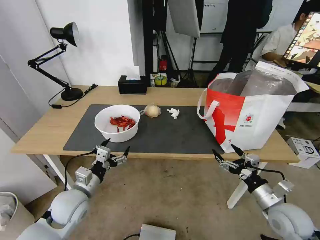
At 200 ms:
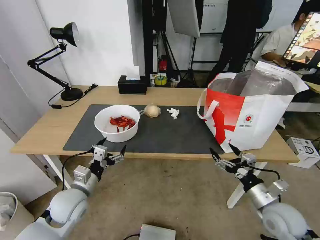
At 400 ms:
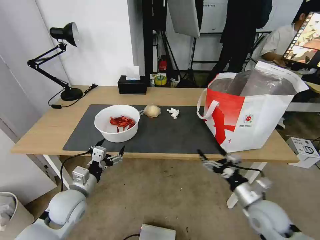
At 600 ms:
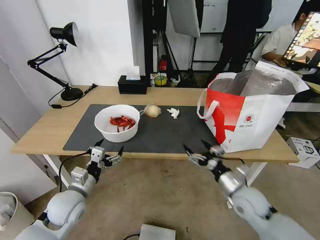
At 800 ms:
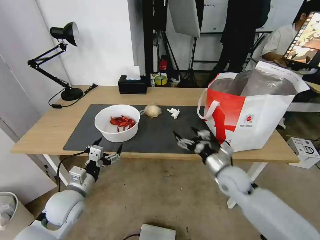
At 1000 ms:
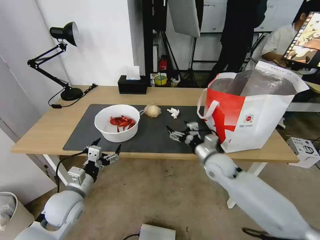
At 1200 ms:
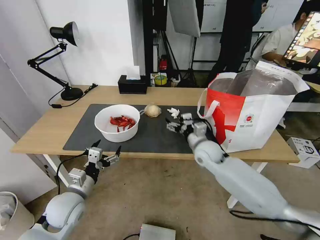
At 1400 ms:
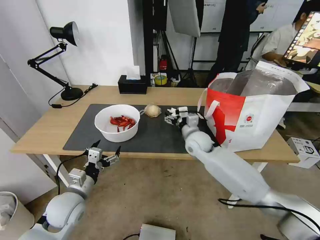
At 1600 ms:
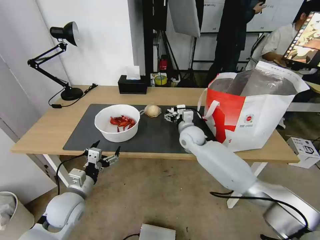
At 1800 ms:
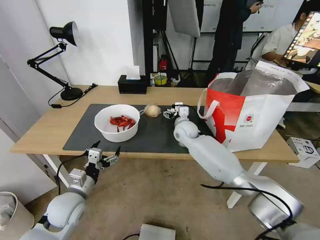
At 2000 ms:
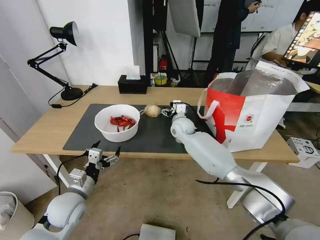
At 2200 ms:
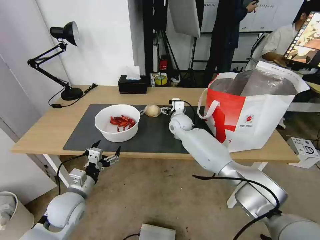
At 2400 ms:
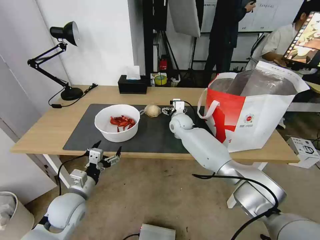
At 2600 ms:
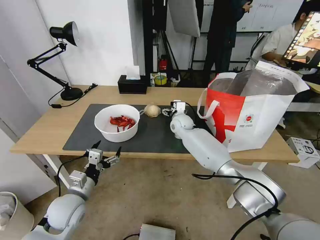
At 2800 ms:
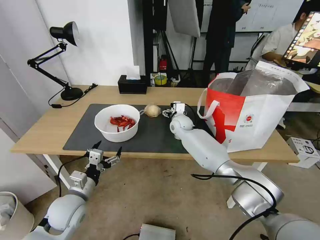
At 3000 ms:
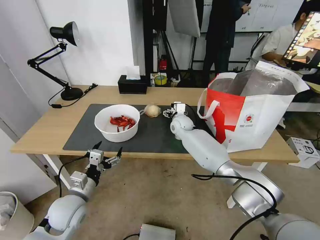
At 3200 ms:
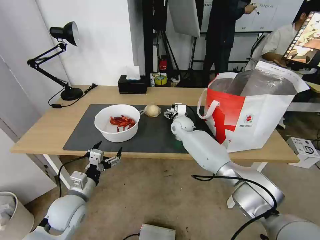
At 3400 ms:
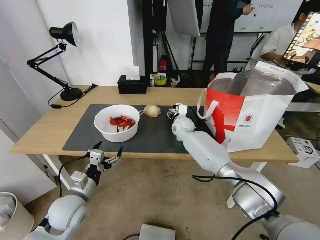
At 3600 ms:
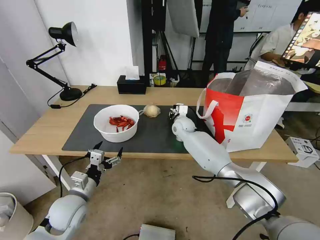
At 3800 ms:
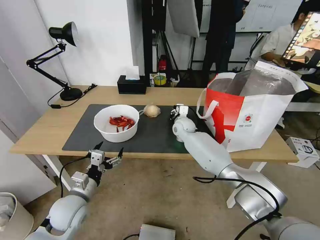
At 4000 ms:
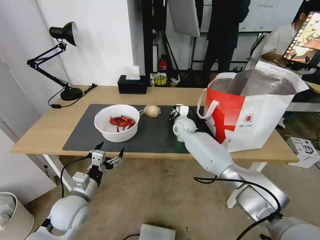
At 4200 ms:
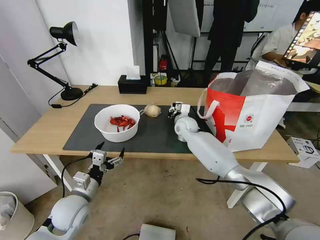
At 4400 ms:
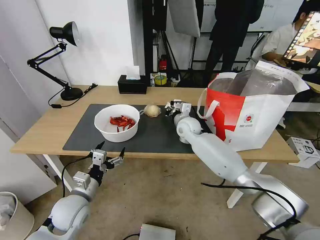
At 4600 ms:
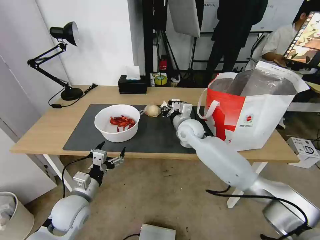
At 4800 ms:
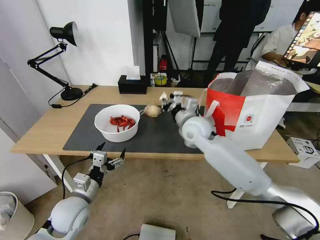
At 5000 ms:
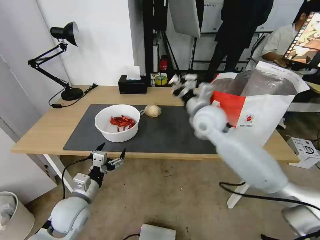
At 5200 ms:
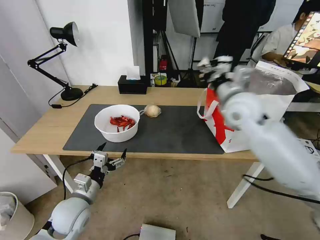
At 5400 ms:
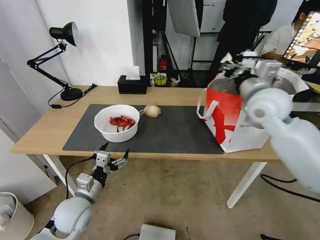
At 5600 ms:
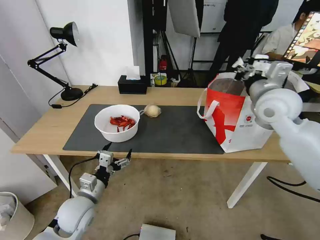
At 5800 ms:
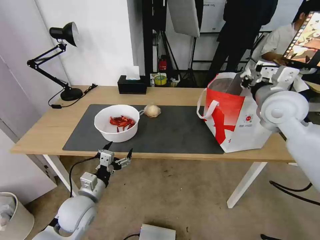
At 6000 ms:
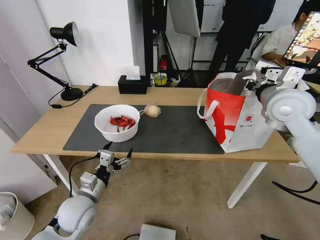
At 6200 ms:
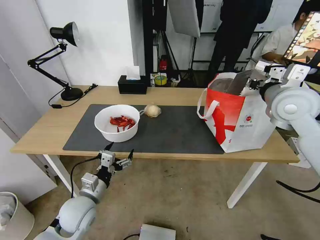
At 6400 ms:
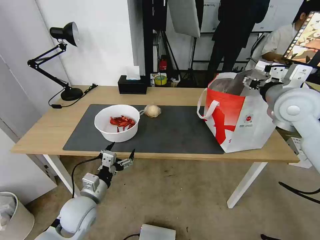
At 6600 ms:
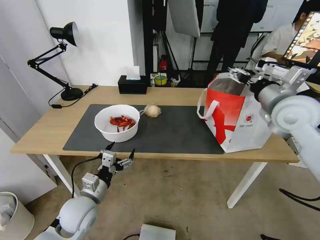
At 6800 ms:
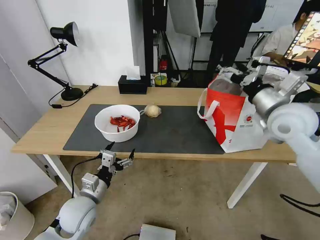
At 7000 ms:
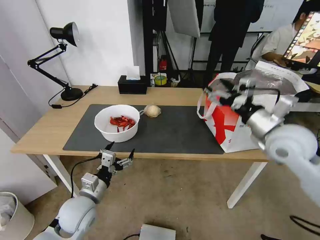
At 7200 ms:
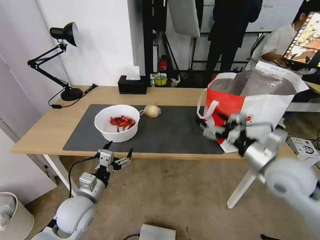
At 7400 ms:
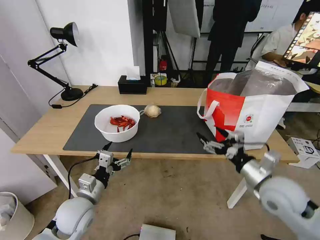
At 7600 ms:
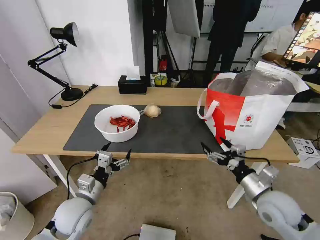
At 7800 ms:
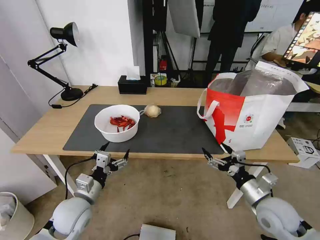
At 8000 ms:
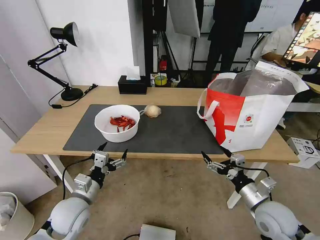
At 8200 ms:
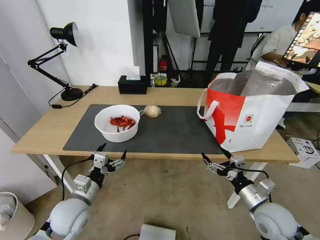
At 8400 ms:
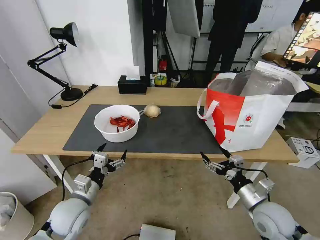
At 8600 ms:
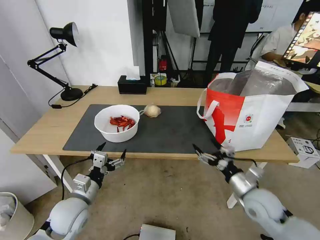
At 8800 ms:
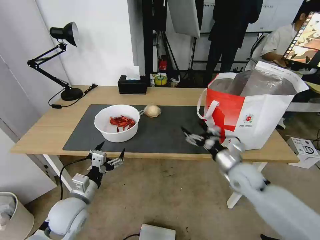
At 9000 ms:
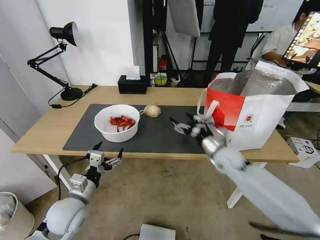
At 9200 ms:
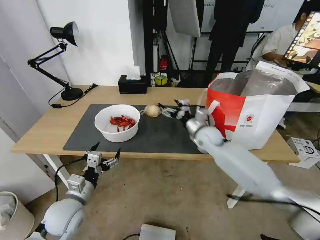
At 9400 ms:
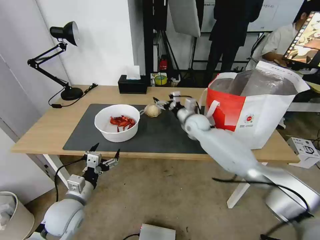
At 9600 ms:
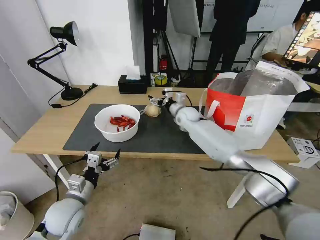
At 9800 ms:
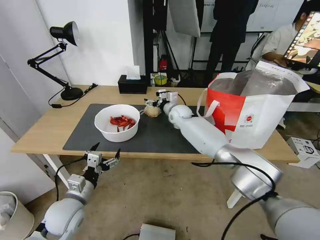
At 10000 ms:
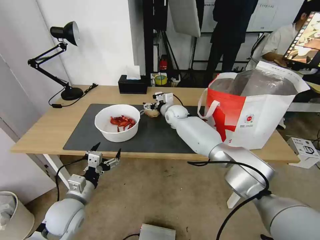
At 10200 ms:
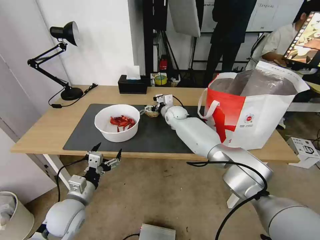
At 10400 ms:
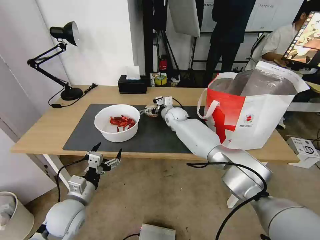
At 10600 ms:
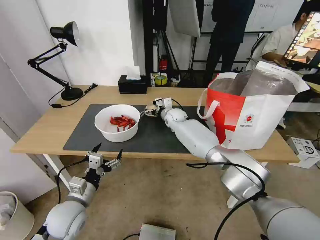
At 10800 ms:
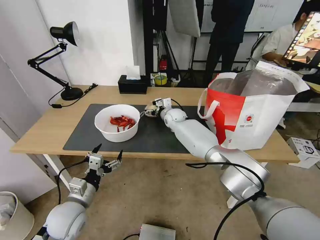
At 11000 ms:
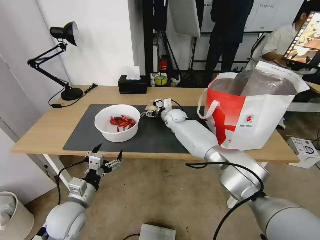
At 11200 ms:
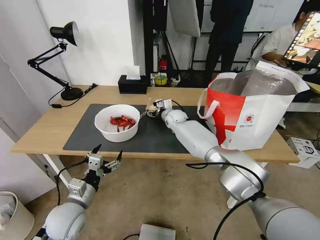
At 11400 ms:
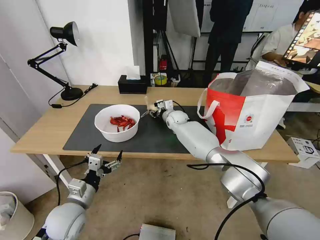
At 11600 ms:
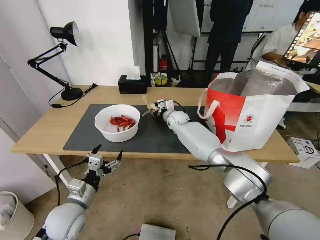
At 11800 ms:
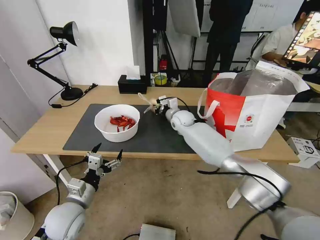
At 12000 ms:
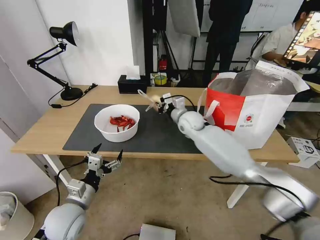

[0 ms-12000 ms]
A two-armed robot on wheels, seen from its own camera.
Task of the whole recording: Pick up the trash from the table and place it into the takeout bag.
0 ms to 1600 ms: The right gripper shifts about 35 cm forward and to the left.
1600 ms to 3000 ms: The right gripper heads forward, covering roughly 10 cm.
3000 ms to 4400 ms: The right gripper changes place by some 5 cm, and closes.
4400 ms to 6000 ms: The right gripper travels to the right, upward and backward by about 30 cm.
6000 ms to 7600 ms: The right gripper travels downward and backward by roughly 30 cm, and opens its fingers.
7600 ms to 9000 ms: The right gripper heads forward and to the left, covering some 20 cm.
9000 ms to 10400 ms: The right gripper goes roughly 25 cm forward and to the left.
10400 ms to 12000 ms: The right gripper heads backward, covering about 10 cm, and closes.

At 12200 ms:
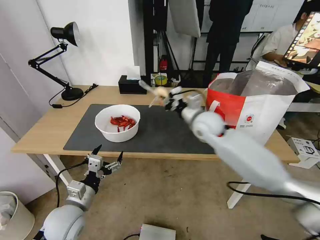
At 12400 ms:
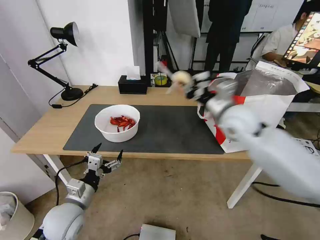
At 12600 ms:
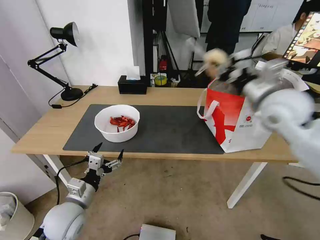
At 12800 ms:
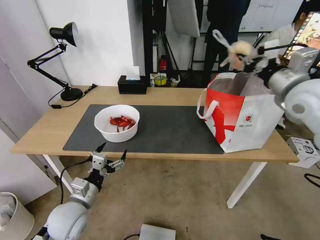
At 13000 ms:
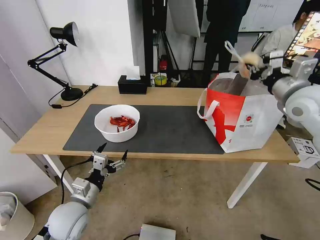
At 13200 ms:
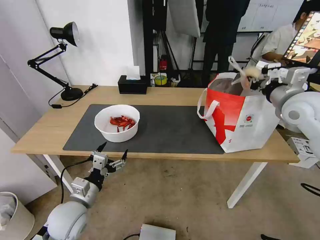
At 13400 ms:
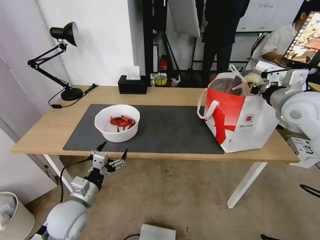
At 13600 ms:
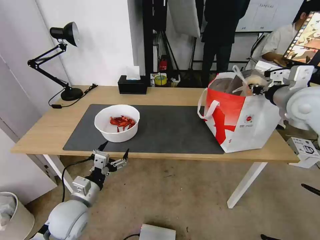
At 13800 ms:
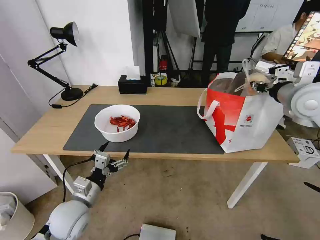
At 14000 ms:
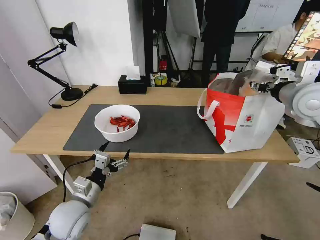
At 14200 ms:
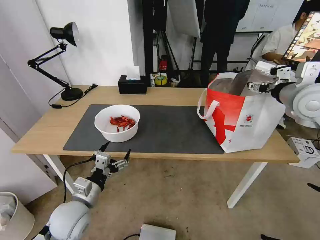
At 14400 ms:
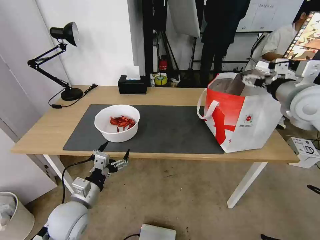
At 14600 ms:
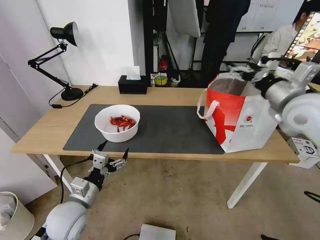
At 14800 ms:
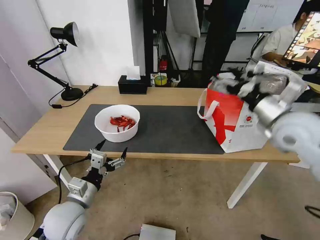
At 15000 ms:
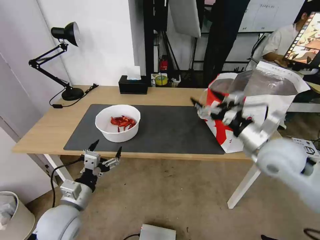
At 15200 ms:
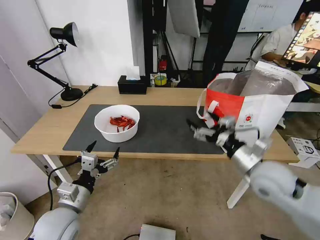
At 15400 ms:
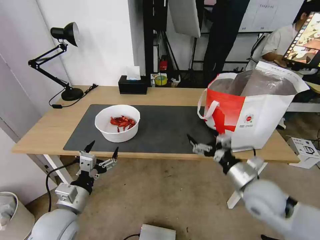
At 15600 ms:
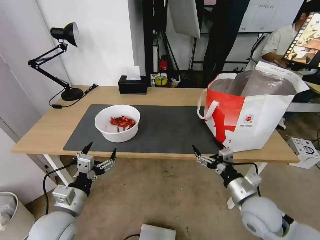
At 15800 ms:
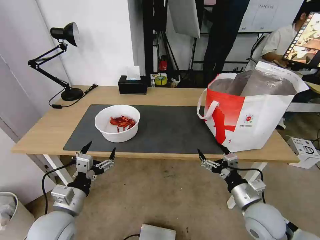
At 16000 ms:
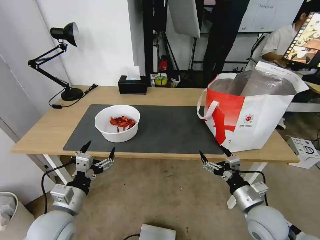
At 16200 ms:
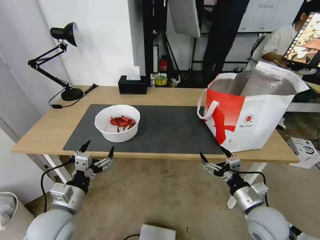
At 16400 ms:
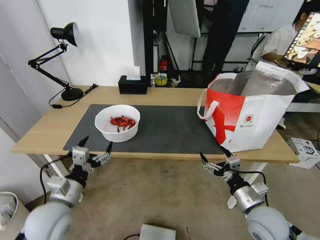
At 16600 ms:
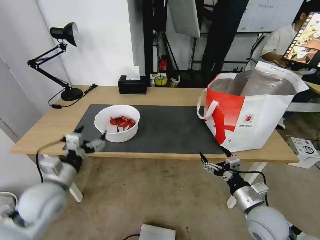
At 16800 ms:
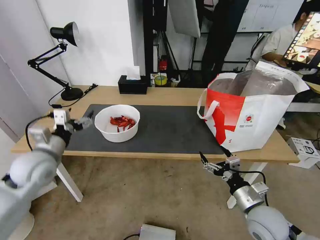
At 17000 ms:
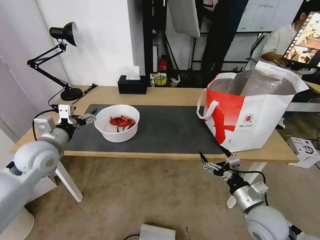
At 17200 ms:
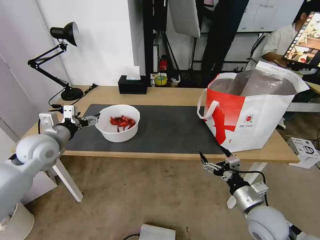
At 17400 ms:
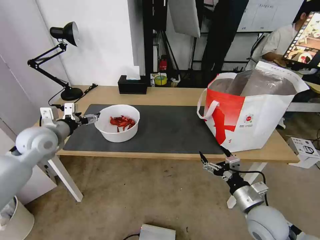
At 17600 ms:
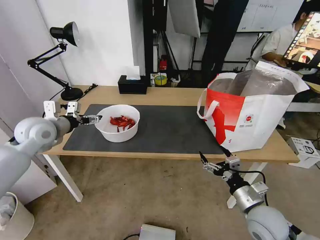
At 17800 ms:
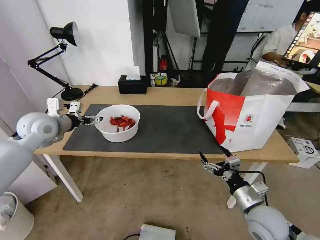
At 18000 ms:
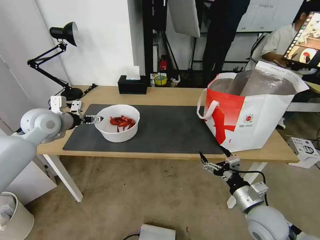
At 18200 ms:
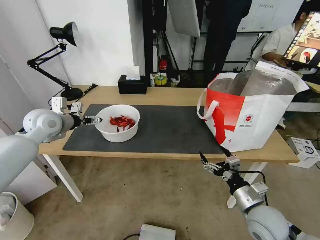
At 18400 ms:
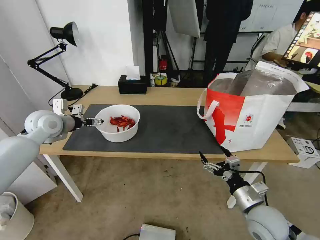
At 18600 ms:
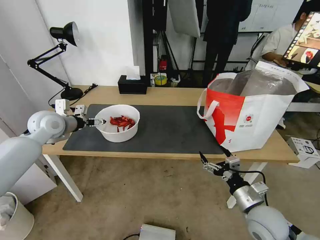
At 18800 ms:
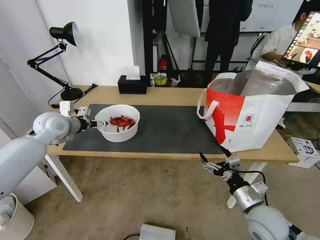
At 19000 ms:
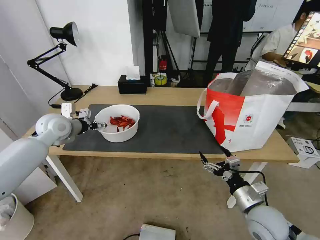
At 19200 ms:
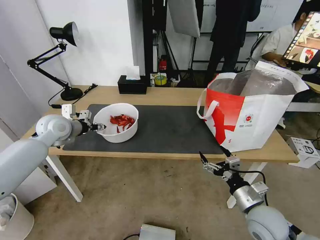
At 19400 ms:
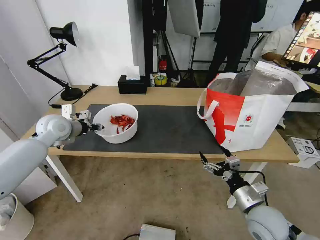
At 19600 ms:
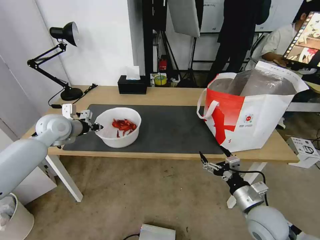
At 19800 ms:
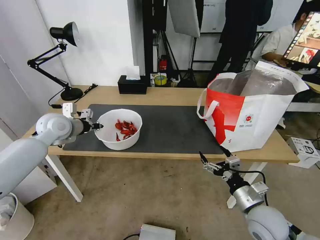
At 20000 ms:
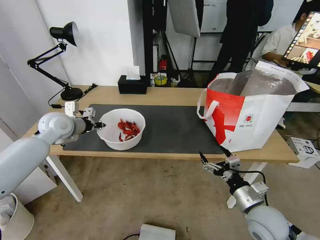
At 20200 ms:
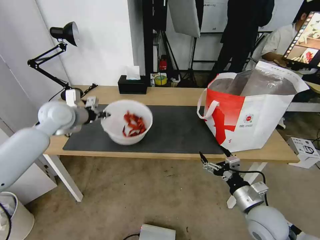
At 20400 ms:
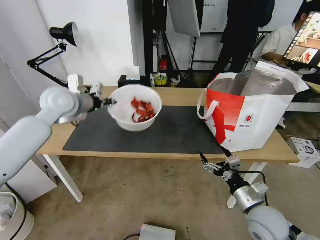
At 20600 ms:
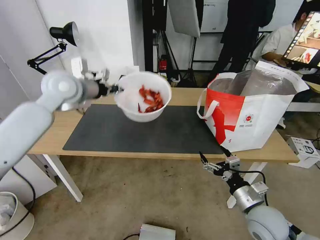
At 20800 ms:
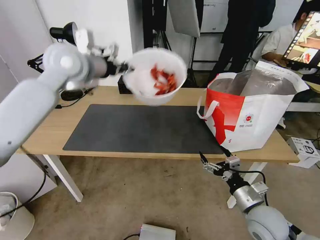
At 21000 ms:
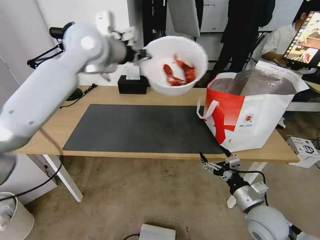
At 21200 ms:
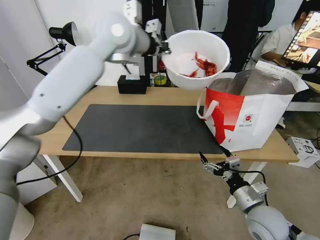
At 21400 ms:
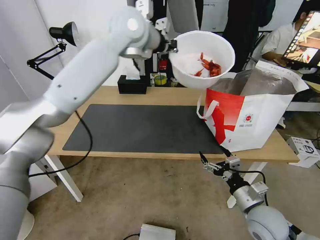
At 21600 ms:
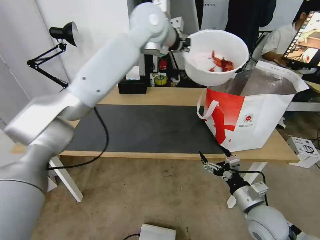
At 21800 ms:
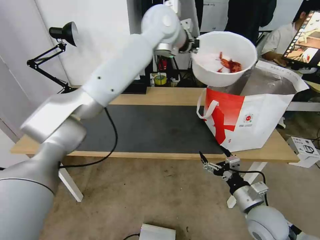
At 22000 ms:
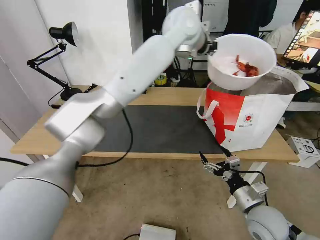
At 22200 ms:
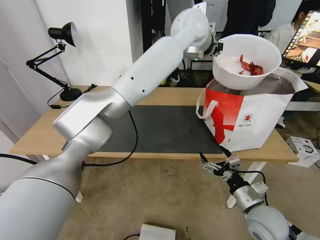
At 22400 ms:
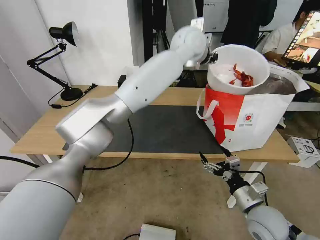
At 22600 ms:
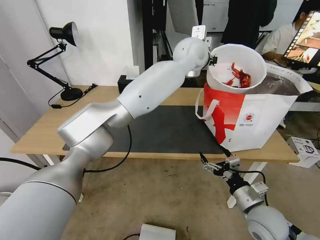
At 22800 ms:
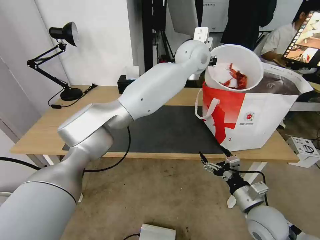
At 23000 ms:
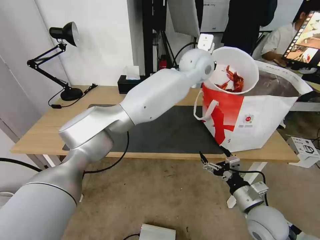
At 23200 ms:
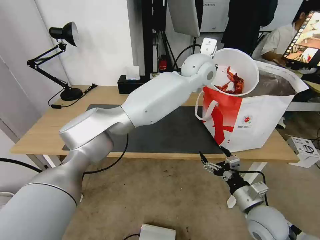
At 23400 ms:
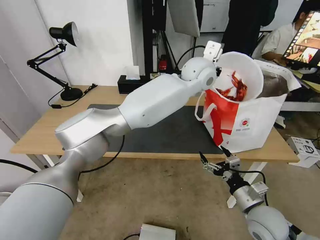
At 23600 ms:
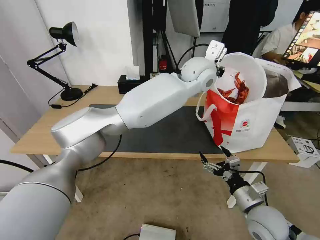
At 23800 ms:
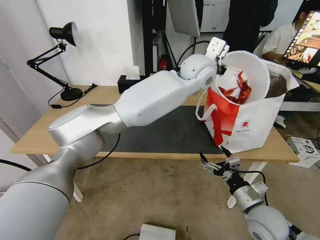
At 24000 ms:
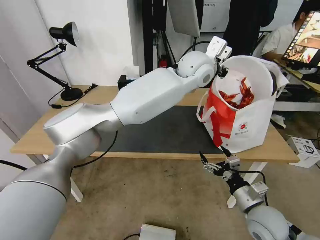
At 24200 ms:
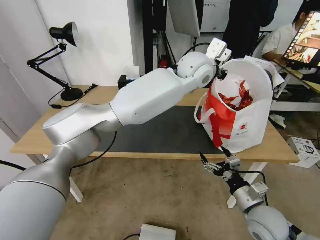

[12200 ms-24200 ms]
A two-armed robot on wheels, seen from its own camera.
Task of the whole recording: Pick up the trash from the table and place it into the takeout bag.
12200 ms to 13800 ms: The right gripper shifts roughly 25 cm to the right and upward.
13800 ms to 15200 ms: The right gripper goes approximately 20 cm downward, backward and to the left, and opens.
15200 ms to 16600 ms: The left gripper travels forward by about 5 cm; the right gripper goes approximately 15 cm downward and backward.
16600 ms to 18200 ms: The left gripper goes roughly 20 cm forward and upward.
18200 ms to 19800 ms: The left gripper closes.
19800 ms to 21200 ms: The left gripper goes roughly 35 cm upward and to the right.
21200 ms to 22600 ms: The left gripper moves to the right, approximately 20 cm.
22600 ms to 24200 ms: The left gripper ends up roughly 5 cm from where it was.
